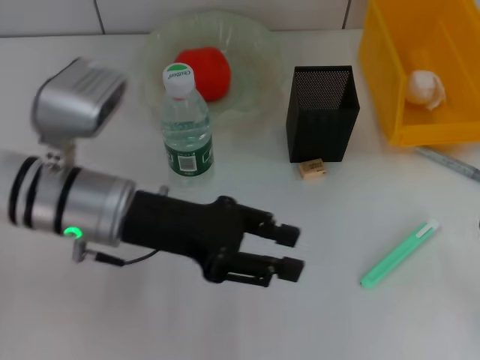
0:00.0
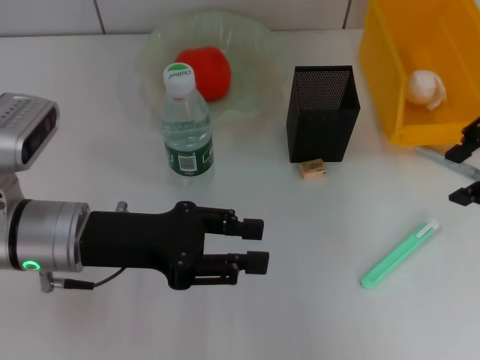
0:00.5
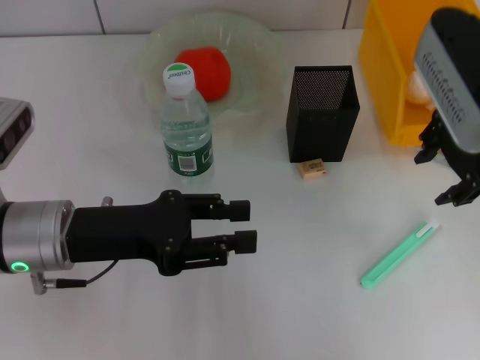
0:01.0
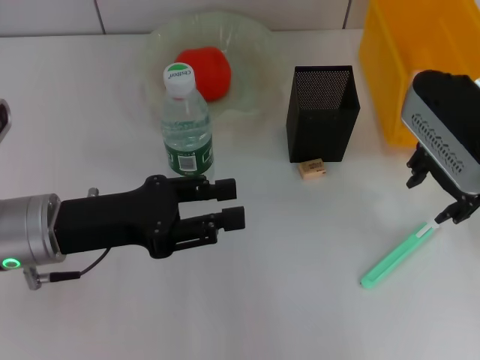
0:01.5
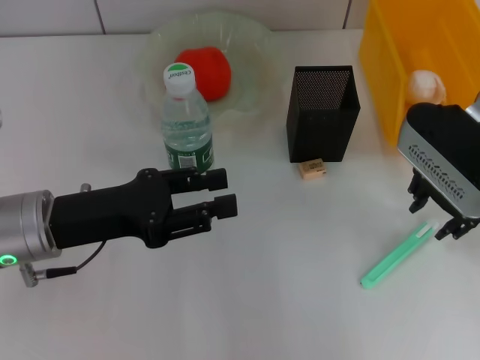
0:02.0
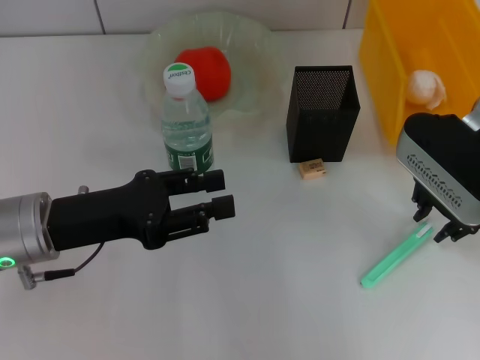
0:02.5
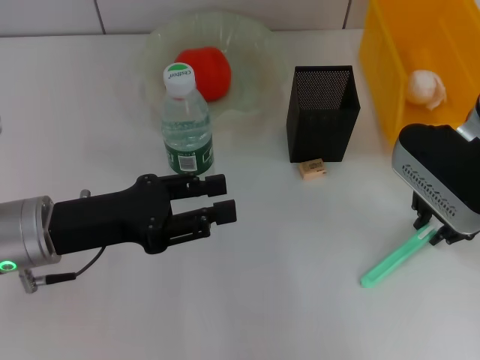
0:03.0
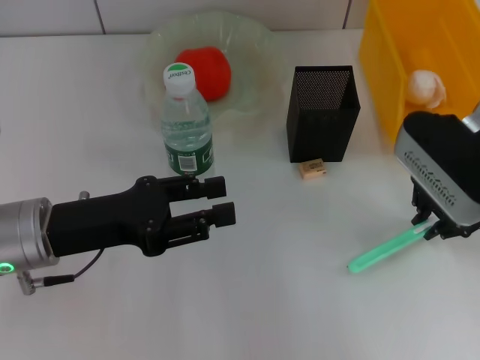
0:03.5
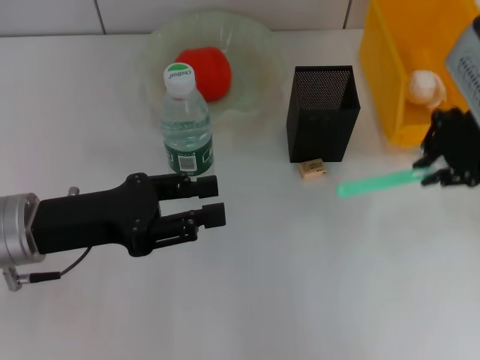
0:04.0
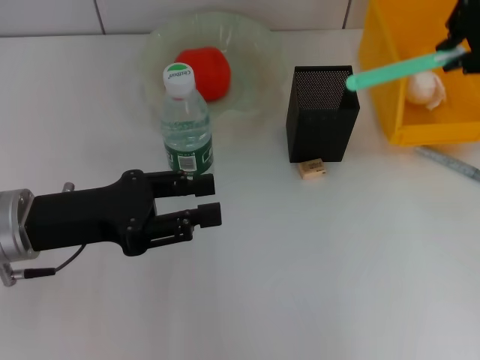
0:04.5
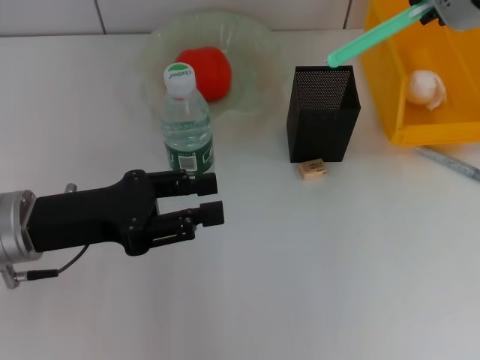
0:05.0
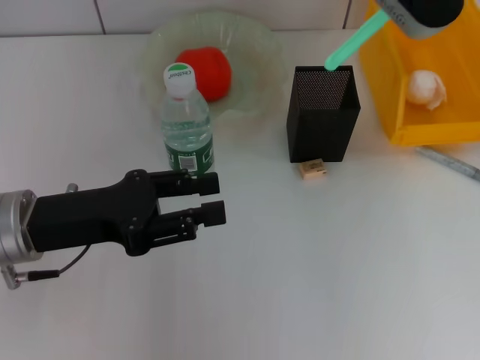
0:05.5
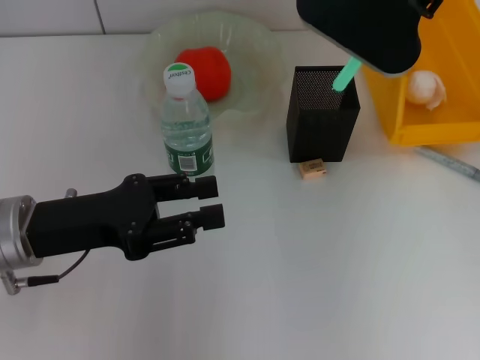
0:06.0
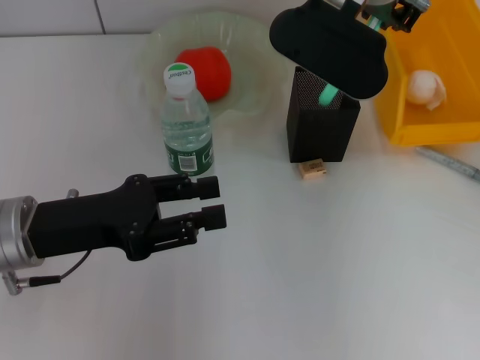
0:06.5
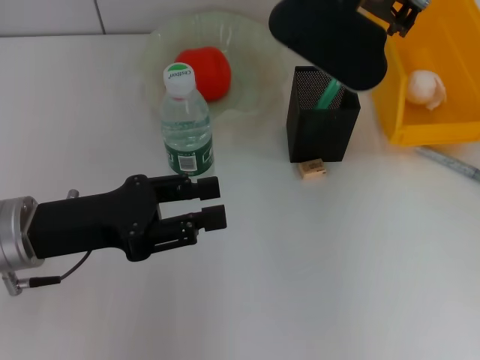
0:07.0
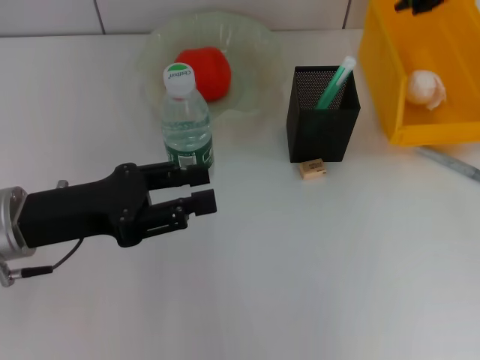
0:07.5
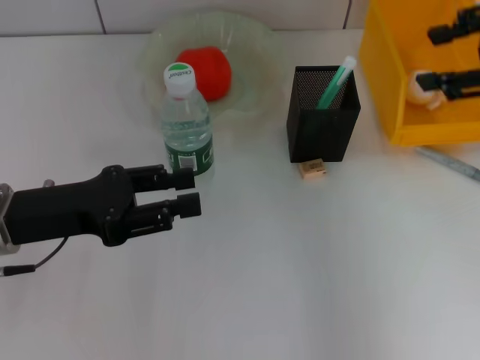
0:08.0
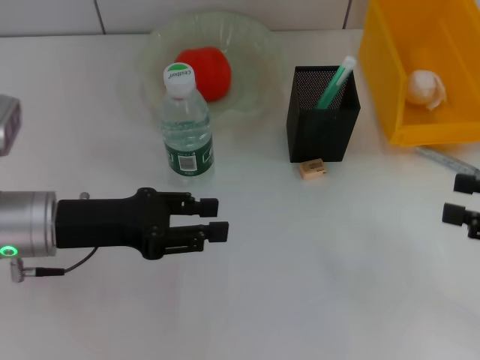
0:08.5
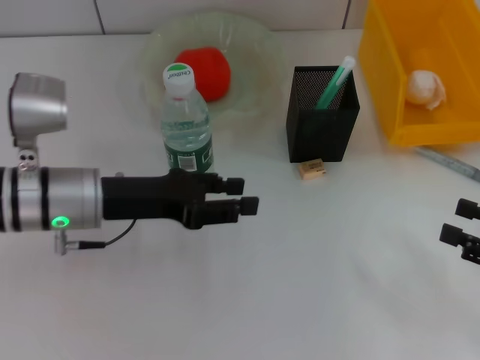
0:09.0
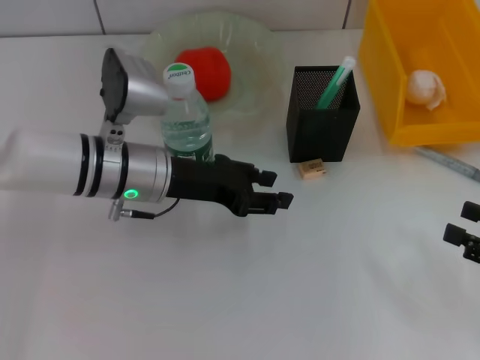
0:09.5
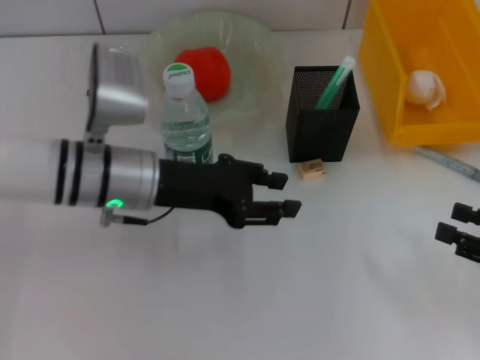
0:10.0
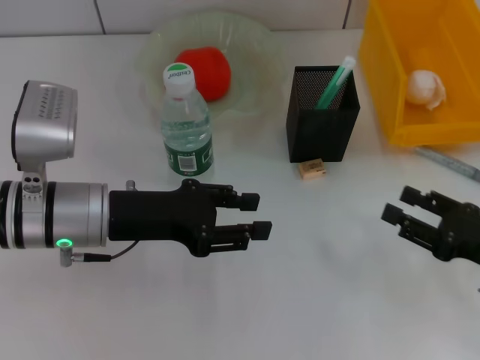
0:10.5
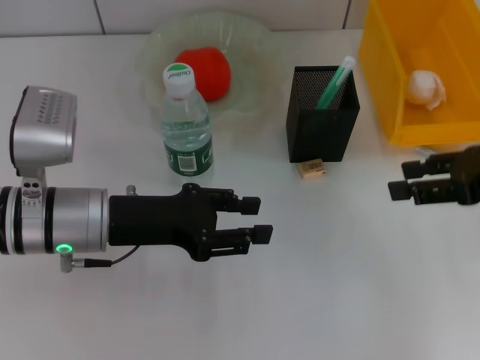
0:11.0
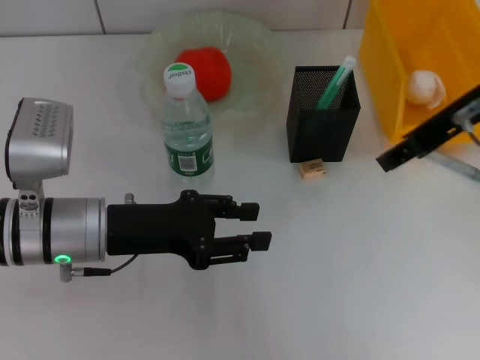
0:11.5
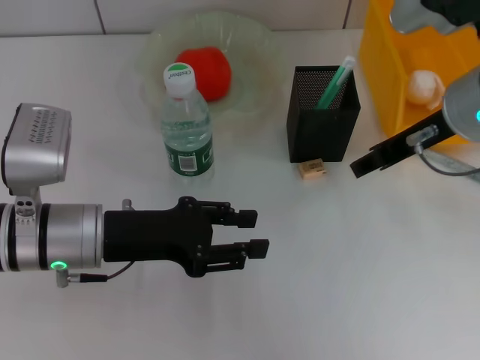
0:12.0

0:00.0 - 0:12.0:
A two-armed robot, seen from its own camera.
Step, 0:00.0 - 0:03.0: Grab the blue utility knife with the right hand.
Step, 0:03.5 - 0:07.0: Place the blue utility knife into the pen holder with the right hand.
0:00.0 - 0:02.0: The left gripper travels to the left by about 5 cm, while the right gripper shifts approximately 20 cm to the left and forward.
0:02.0 - 0:04.0: The right gripper is displaced upward by some 5 cm, and closes up.
0:04.0 - 0:06.0: The right gripper moves to the left, forward and upward, approximately 15 cm.
0:06.0 - 0:08.0: The right gripper travels to the right and backward by some 25 cm, and opens.
0:08.0 - 0:10.0: The right gripper shifts about 20 cm downward and backward. Meanwhile the left gripper goes about 15 cm to the right and forward.
0:10.0 - 0:12.0: The right gripper travels to the left, upward and forward by about 25 cm; the left gripper travels backward and to the left by about 10 cm.

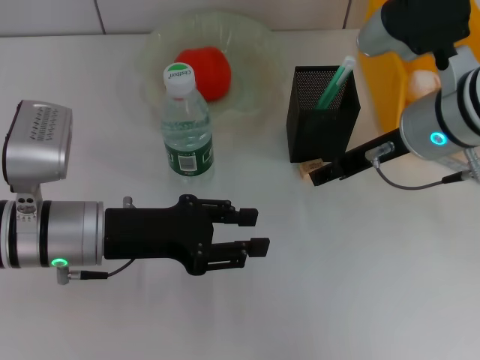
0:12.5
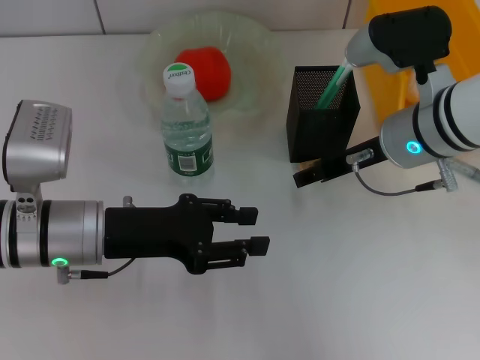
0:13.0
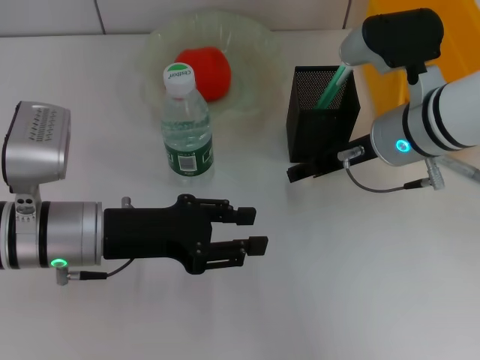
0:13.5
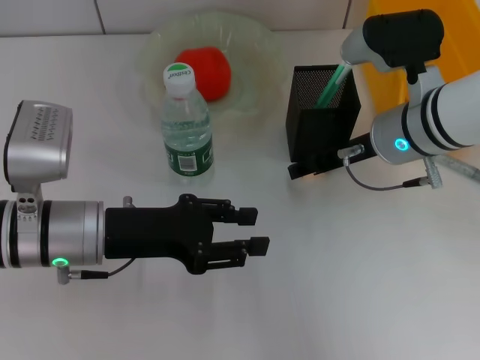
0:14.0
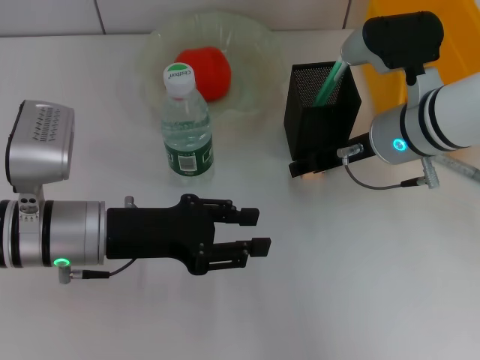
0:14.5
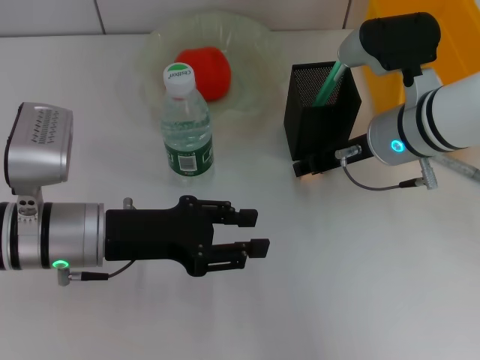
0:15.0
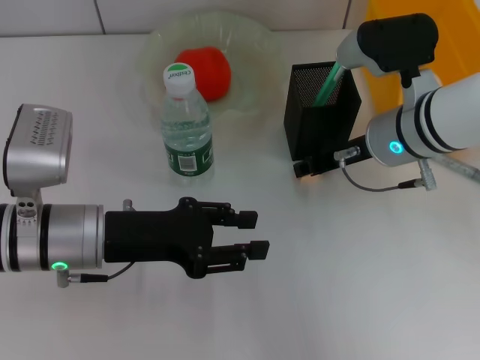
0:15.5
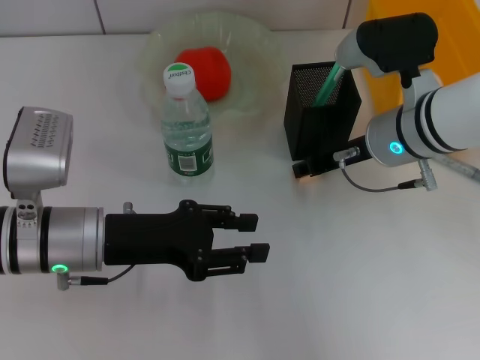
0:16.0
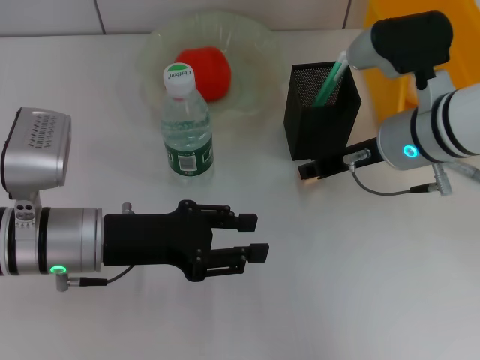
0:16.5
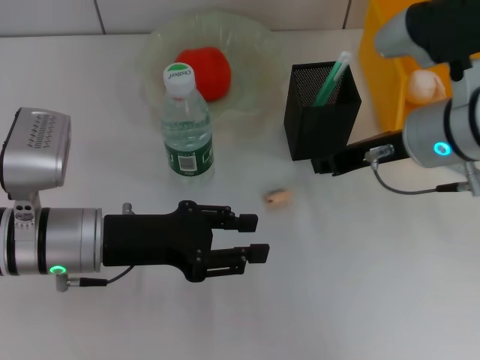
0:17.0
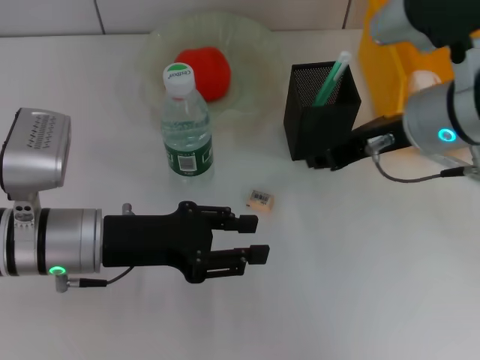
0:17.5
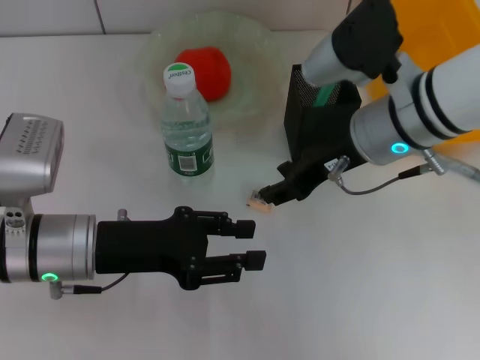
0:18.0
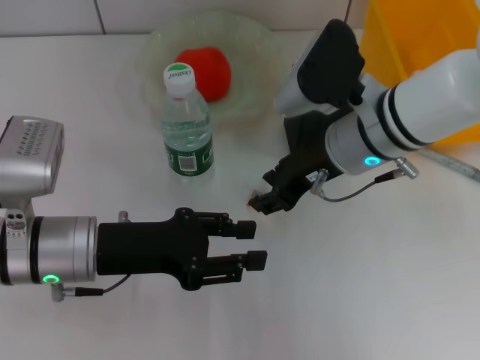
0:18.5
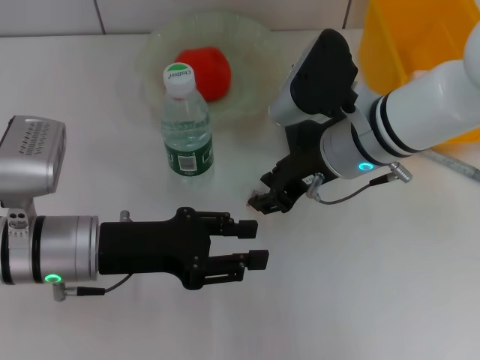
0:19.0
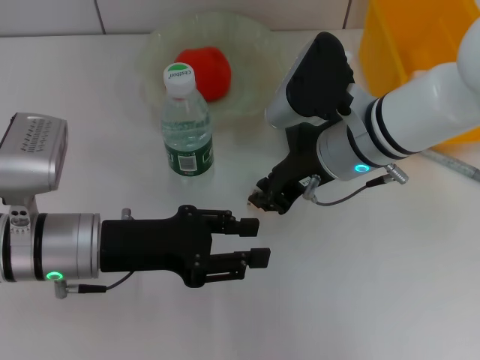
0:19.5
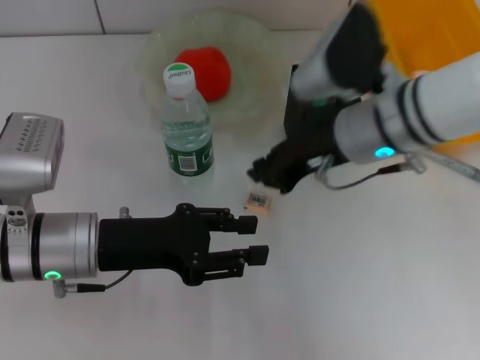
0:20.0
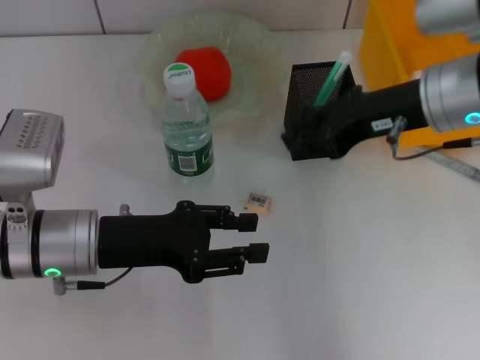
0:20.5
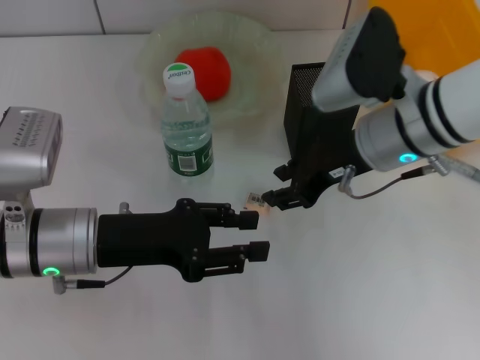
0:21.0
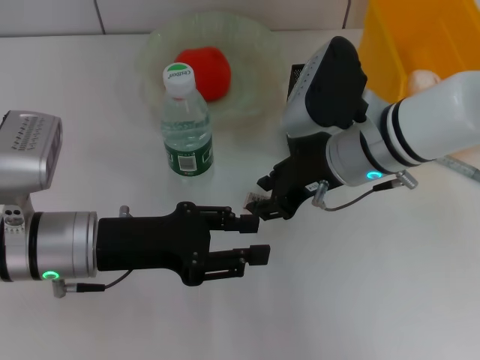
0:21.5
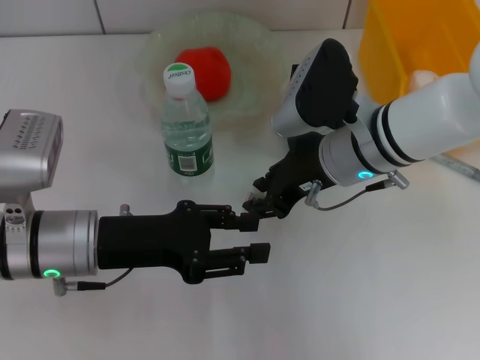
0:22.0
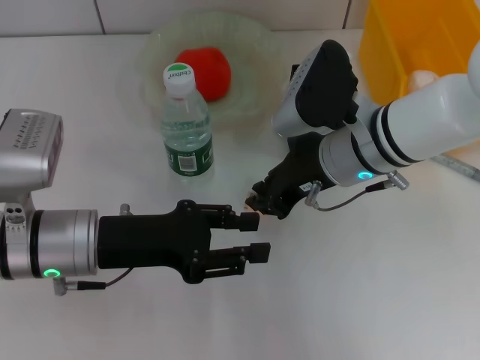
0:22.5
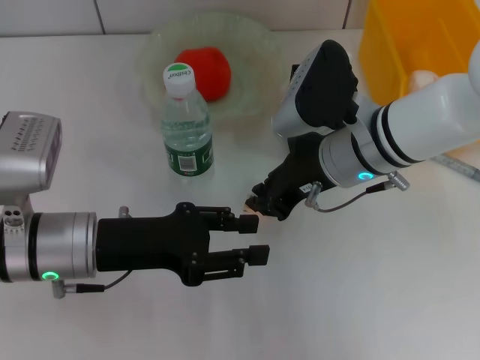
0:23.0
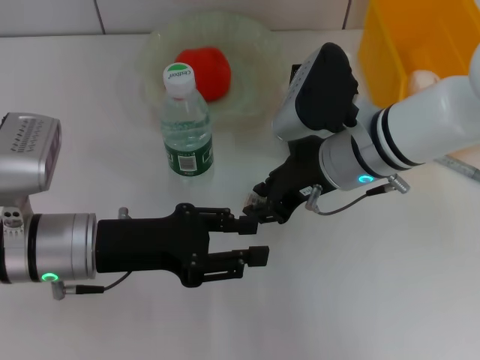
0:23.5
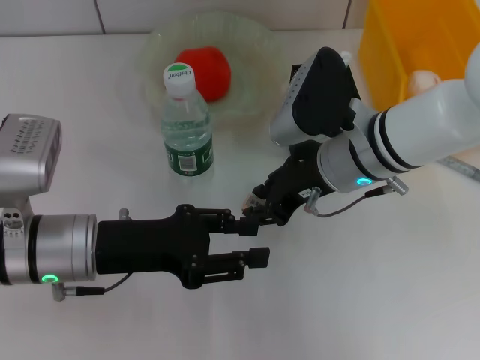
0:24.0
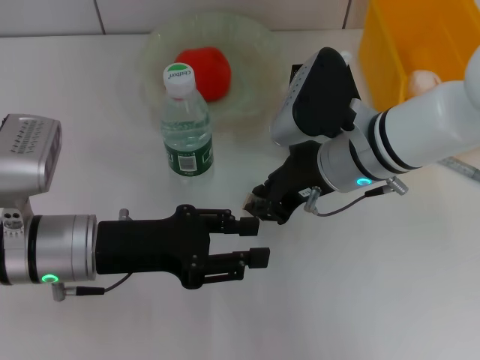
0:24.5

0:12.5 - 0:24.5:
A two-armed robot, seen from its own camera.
Step, 0:12.5 - 0:24.0: Grab the eraser with the right hand.
0:12.5 - 0:14.5: The right gripper changes place by roughly 5 cm.
0:14.5 - 0:16.5: The right gripper closes up.
0:18.5 - 0:20.5: The right gripper is displaced to the right and upward by roughly 10 cm, and closes up.
0:20.5 - 0:22.5: The right gripper goes some 10 cm downward and to the left, and opens and closes again.
0:22.5 - 0:24.5: The two grippers keep their place.

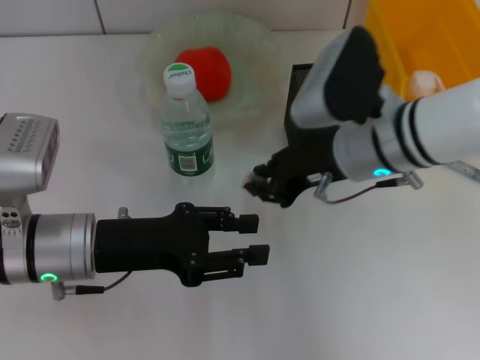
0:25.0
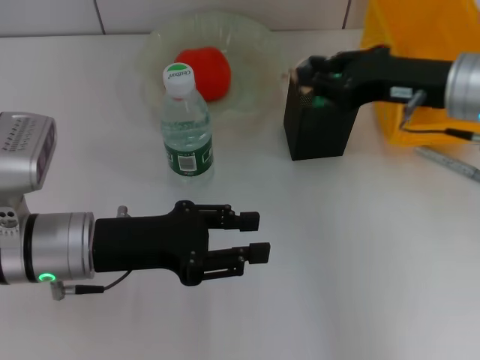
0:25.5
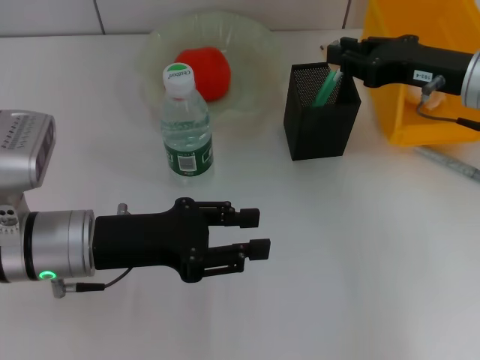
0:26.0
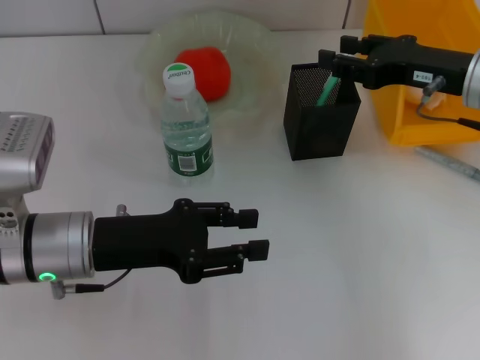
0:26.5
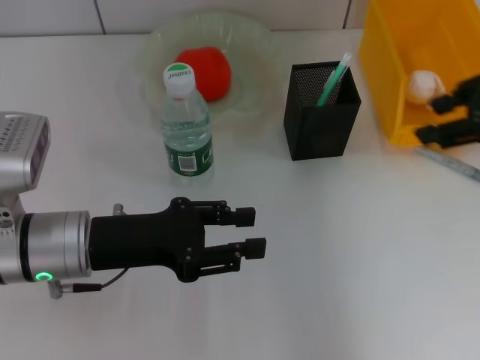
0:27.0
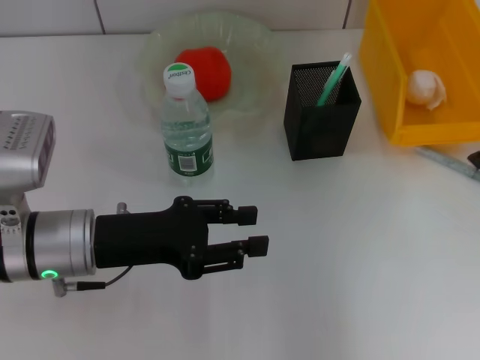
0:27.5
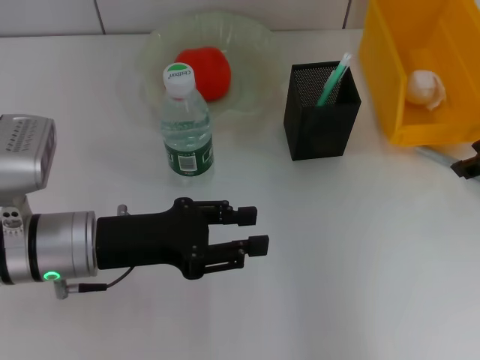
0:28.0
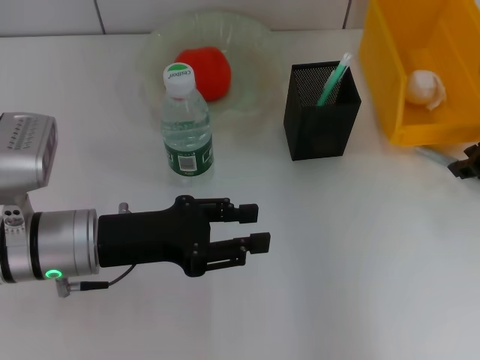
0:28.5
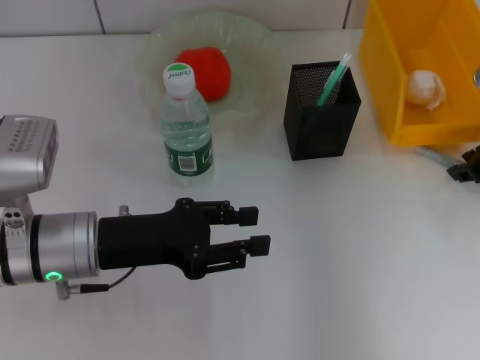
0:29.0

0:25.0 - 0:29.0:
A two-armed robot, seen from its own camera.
Step, 0:25.0 - 0:26.5: Put the eraser into the pen holder with the right hand.
0:25.0 - 0:27.0: The right gripper shifts some 20 cm to the right and upward, and opens.
0:27.0 - 0:29.0: The right gripper travels downward and forward by about 15 cm.
